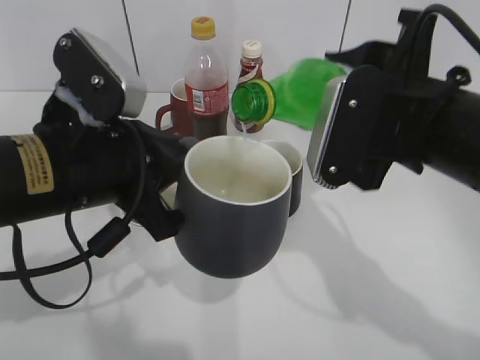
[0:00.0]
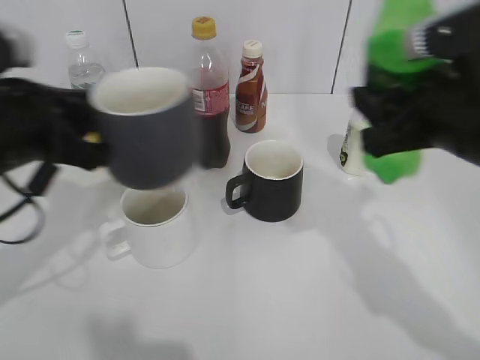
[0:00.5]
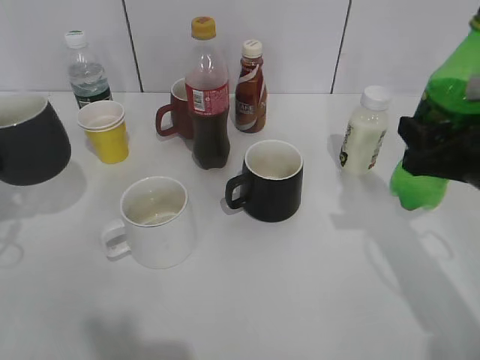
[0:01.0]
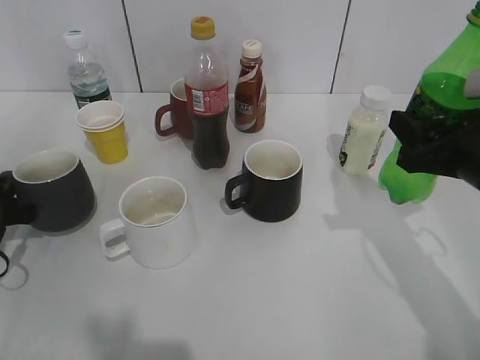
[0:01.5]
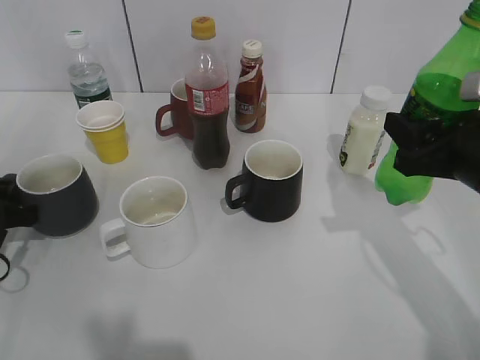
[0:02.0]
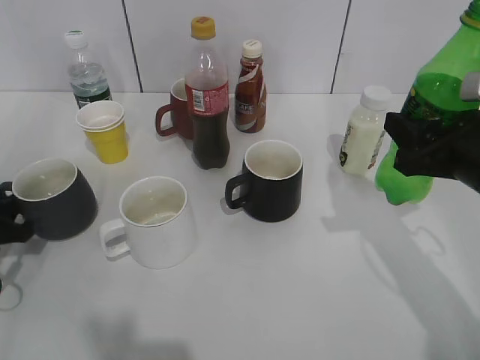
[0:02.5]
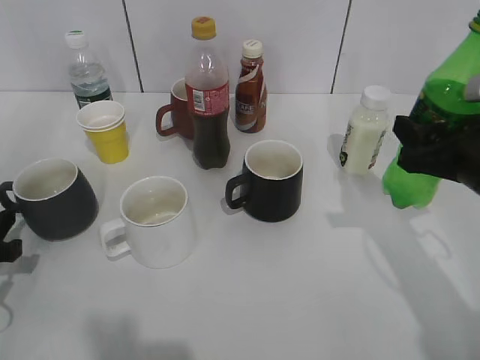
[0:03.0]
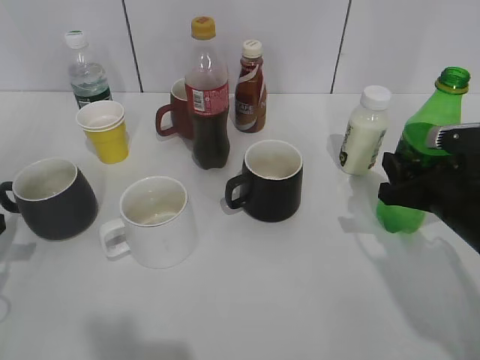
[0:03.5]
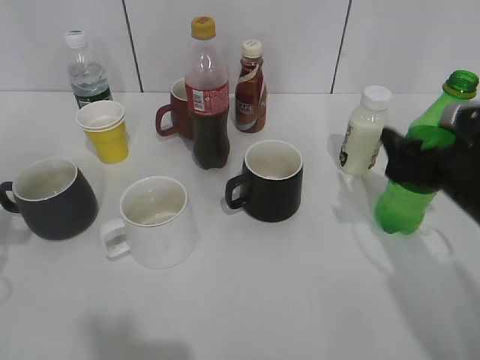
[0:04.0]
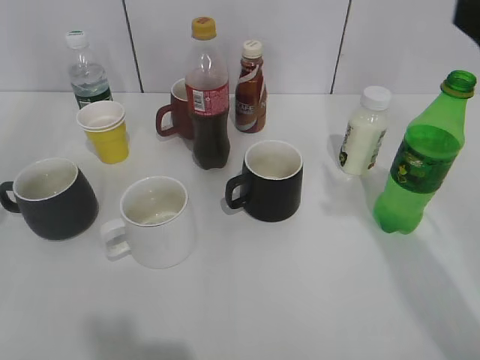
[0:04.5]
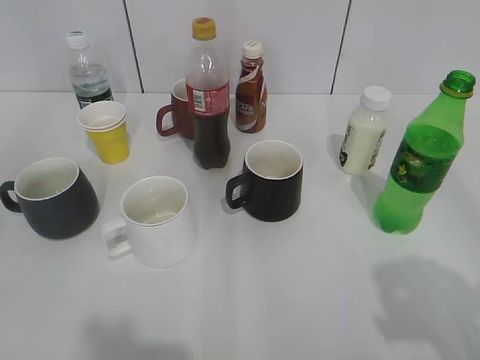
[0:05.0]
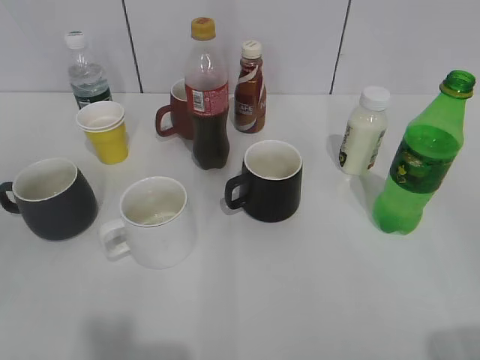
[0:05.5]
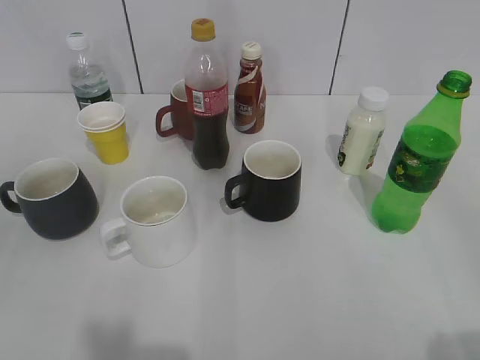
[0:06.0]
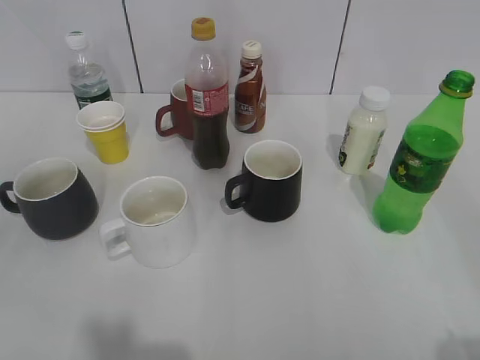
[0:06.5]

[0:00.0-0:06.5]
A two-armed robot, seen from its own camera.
Step, 0:00.5 to 0:02.5: Place the grey cup on the table with left gripper.
Step, 0:03.0 to 0:03.5: Place the sprite bottle on the table with right gripper.
0:00.0 to 0:02.0: The left gripper travels to the left and downward by approximately 25 cm. Meanwhile the right gripper shifts about 10 cm to the right and downward.
0:02.0 to 0:04.5: The left gripper goes about 20 cm upward, and opens its fingers; the right gripper shifts some 15 cm upward, and opens up.
0:04.5 to 0:06.5: The right gripper travels backward by about 20 cm, and closes up.

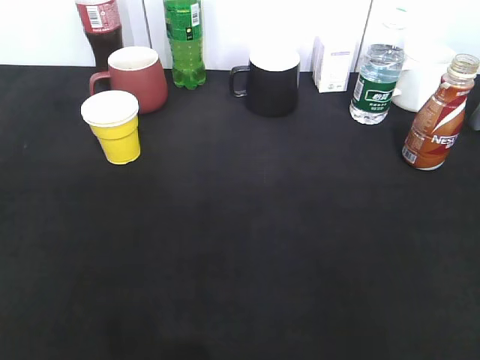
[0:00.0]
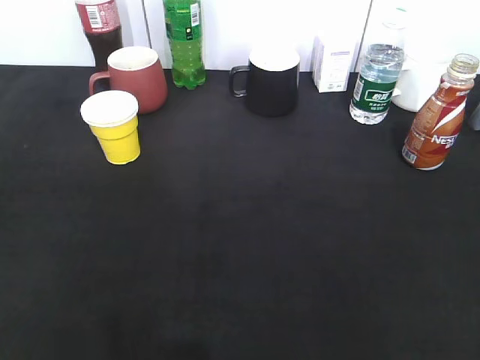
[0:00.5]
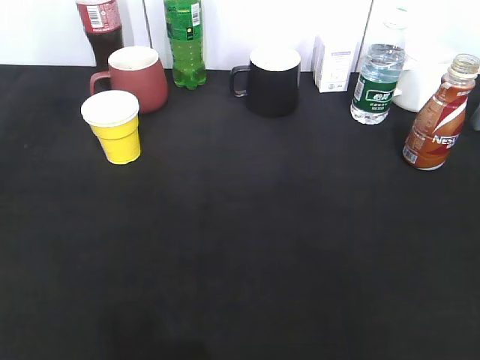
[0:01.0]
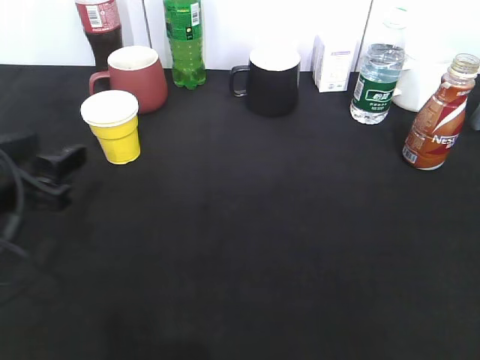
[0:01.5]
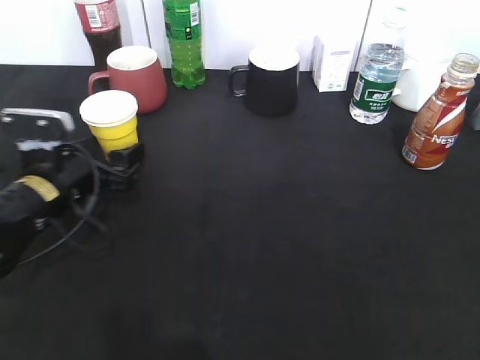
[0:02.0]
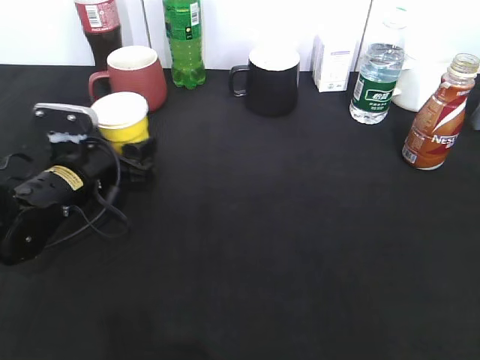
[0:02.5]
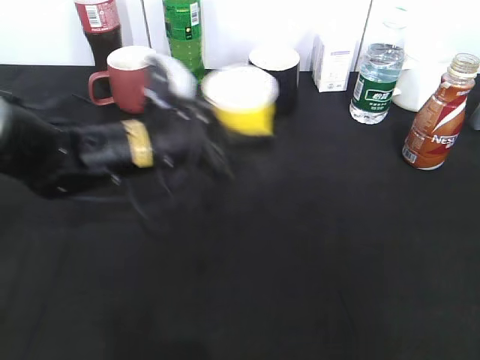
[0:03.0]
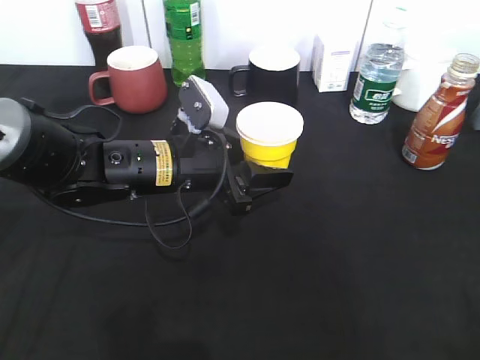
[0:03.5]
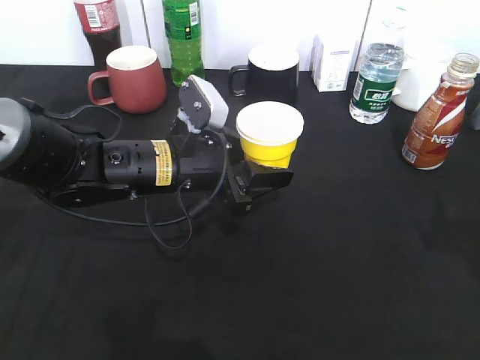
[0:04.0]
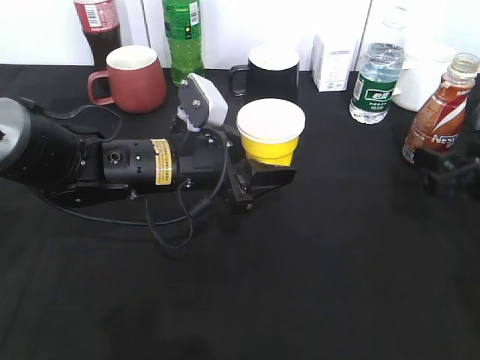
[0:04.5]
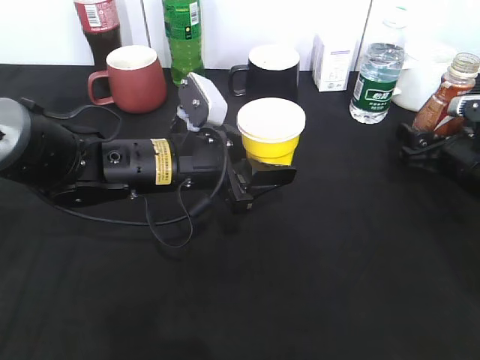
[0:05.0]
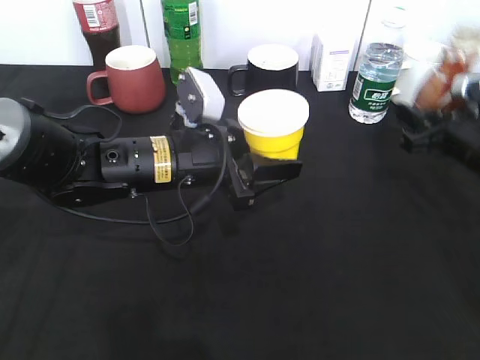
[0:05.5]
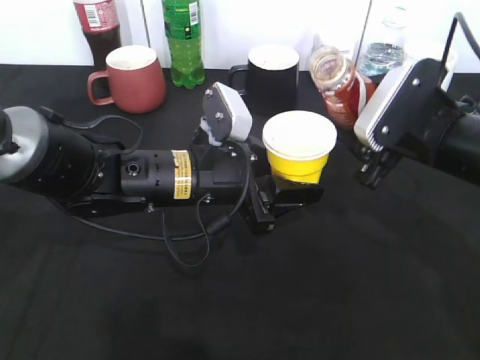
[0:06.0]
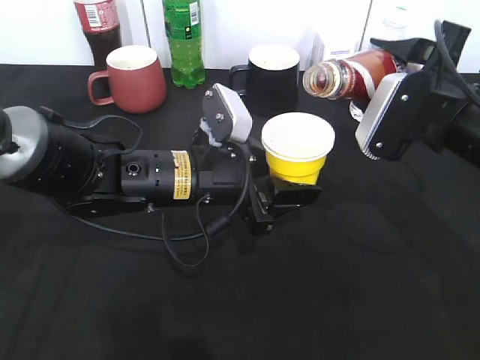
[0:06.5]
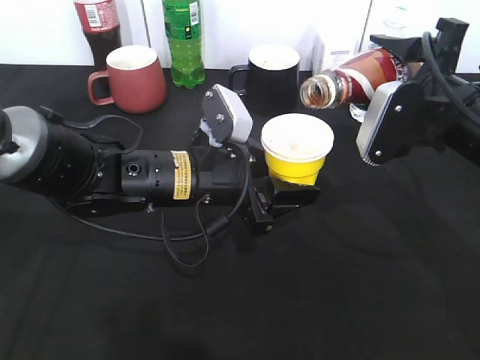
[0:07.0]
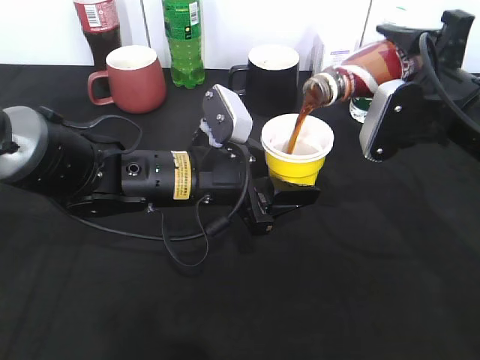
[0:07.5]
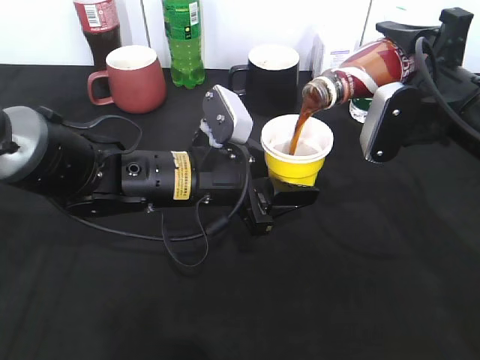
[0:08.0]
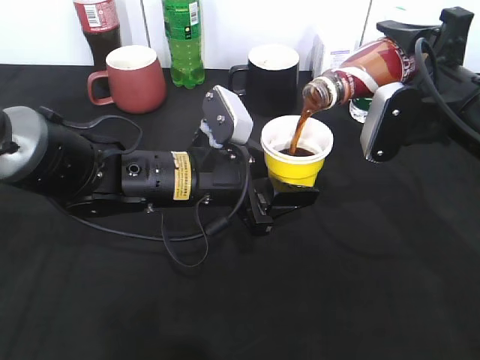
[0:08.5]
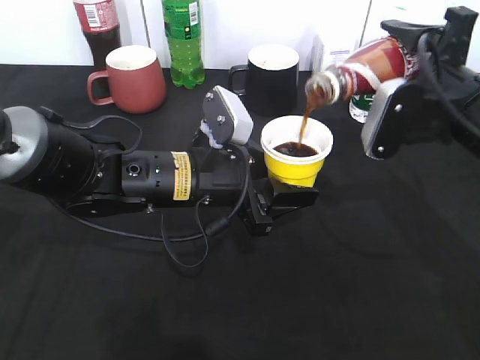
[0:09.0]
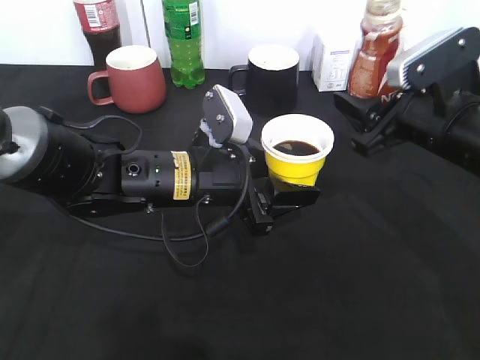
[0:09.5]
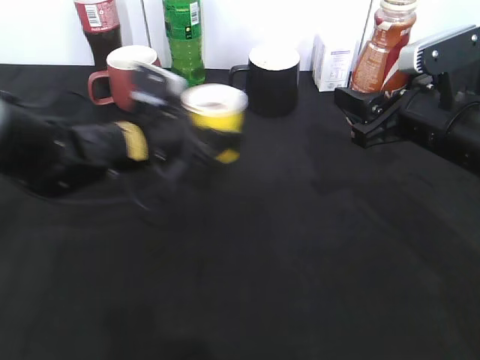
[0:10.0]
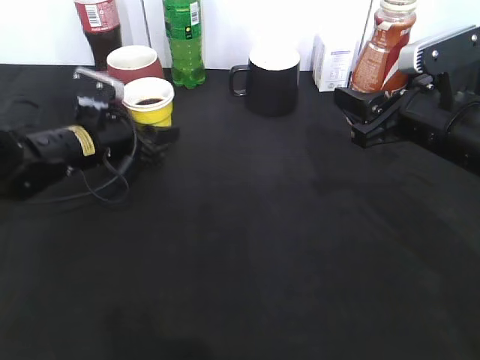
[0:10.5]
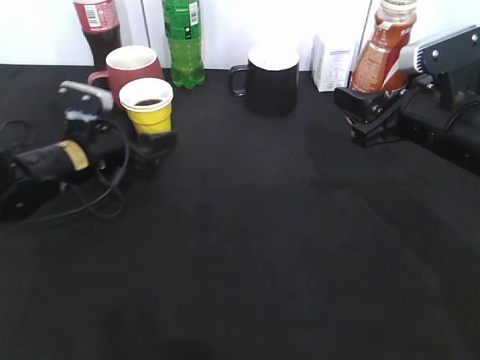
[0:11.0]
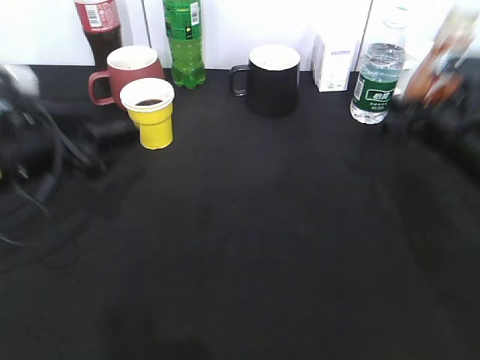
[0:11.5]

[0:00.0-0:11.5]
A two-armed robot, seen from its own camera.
Step, 0:01.5 to 0:02.0: Grasp the yellow paper cup with left gripper.
Step, 0:02.5 to 0:04.0: Lift the yellow paper cup with left gripper.
Step, 0:04.5 to 0:05.0: Grasp the bottle with coffee with right gripper.
Step, 0:05.5 to 0:09.0: Pour the coffee from bottle to cup with right gripper.
Step, 0:09.5 to 0:10.5: Place the yellow paper cup on the table with left gripper.
0:00.0 to 0:02.0: The left gripper travels forward and downward by about 35 cm, and opens its fingers.
0:02.0 to 0:04.0: The right gripper goes some 15 cm forward. Meanwhile the left gripper shifts some 15 cm to the right, and closes its fingers.
0:04.0 to 0:06.0: The right gripper moves forward and to the left, about 15 cm, and opens, then closes again.
0:09.5 to 0:11.5: The left gripper moves to the left, approximately 15 cm. Meanwhile the right gripper shifts by roughly 5 cm.

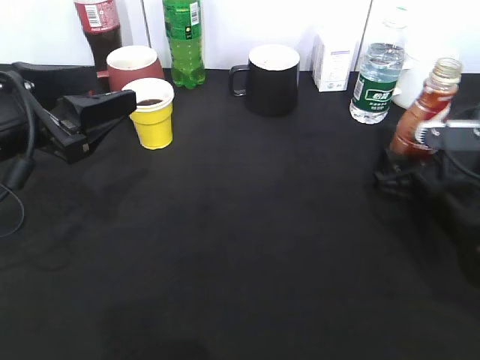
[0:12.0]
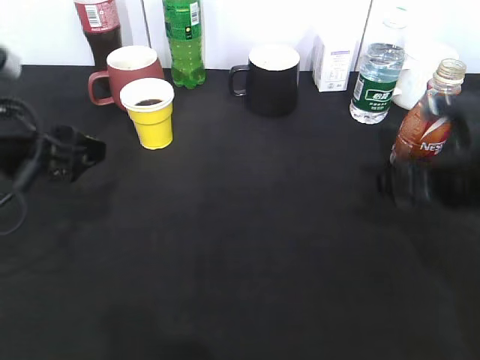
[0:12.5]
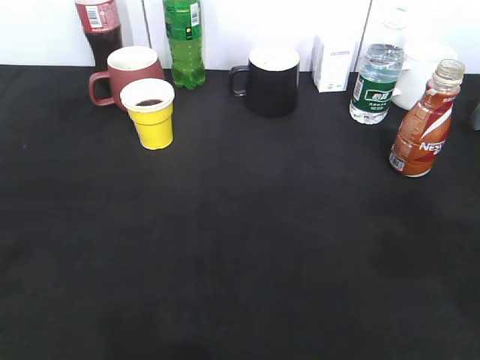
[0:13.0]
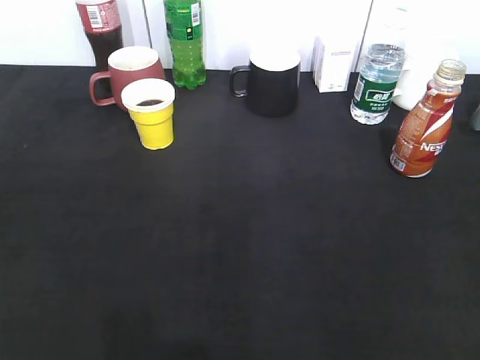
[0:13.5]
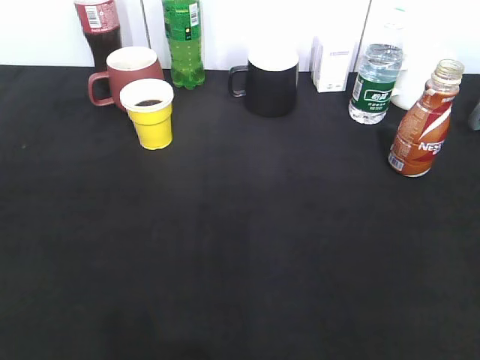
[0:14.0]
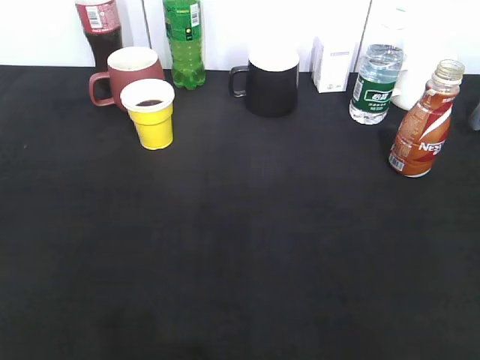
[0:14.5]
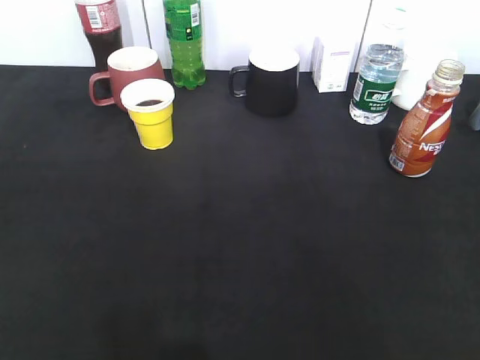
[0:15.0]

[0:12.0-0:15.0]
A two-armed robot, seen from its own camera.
0:12.0 to 0:13.5: The left gripper moves backward and to the left, some 25 cm; the right gripper heads backward and upward, covering about 35 cm.

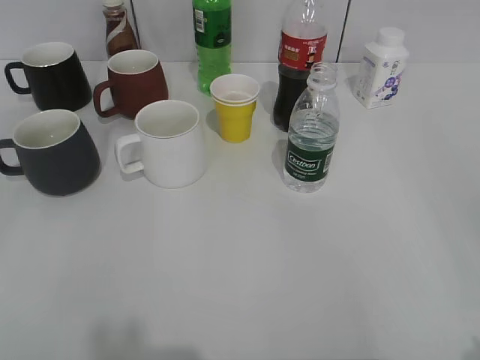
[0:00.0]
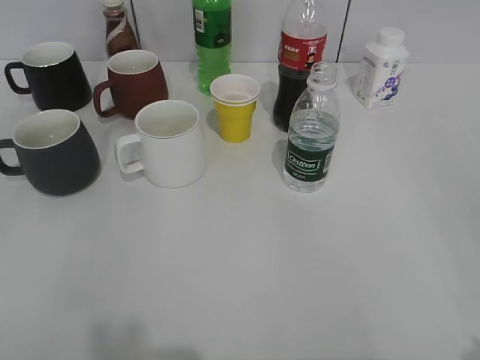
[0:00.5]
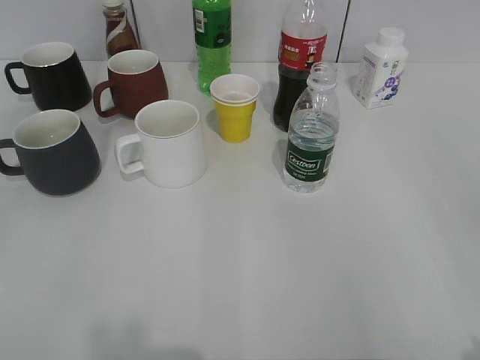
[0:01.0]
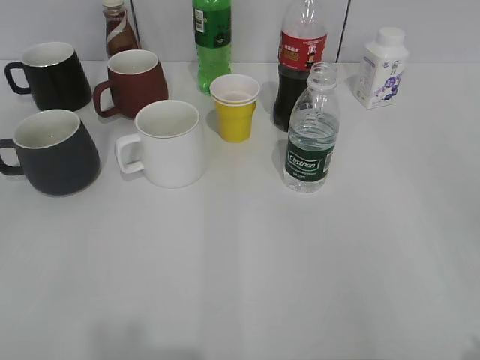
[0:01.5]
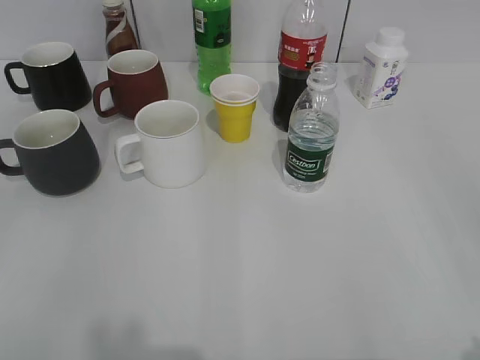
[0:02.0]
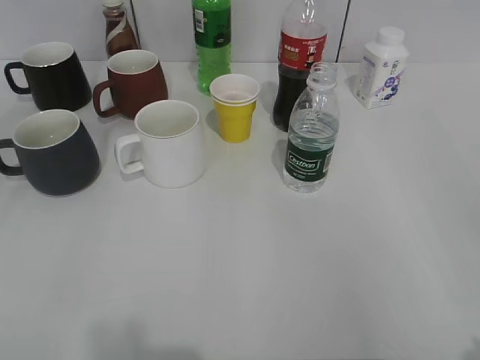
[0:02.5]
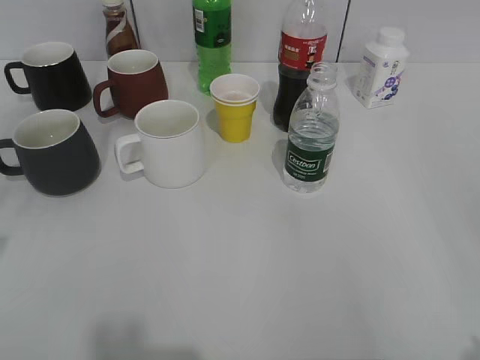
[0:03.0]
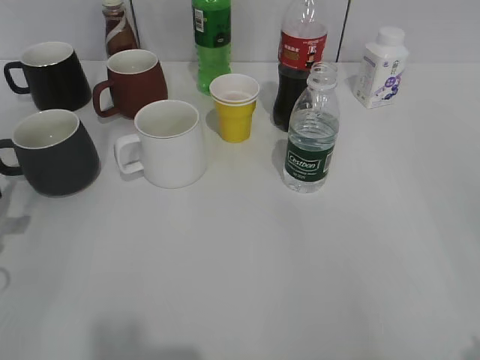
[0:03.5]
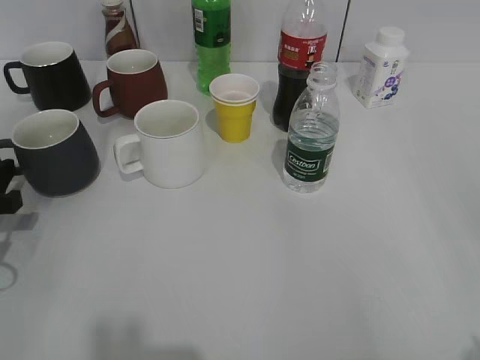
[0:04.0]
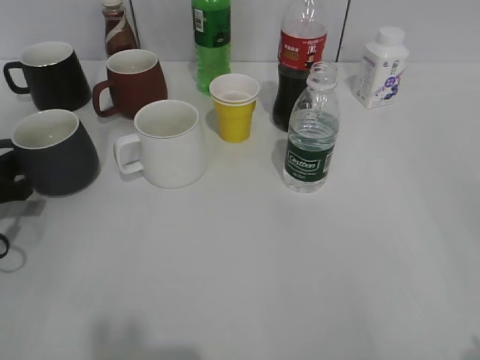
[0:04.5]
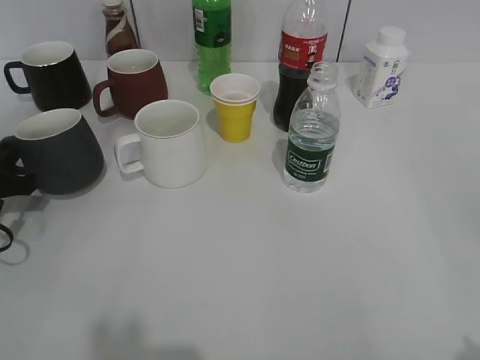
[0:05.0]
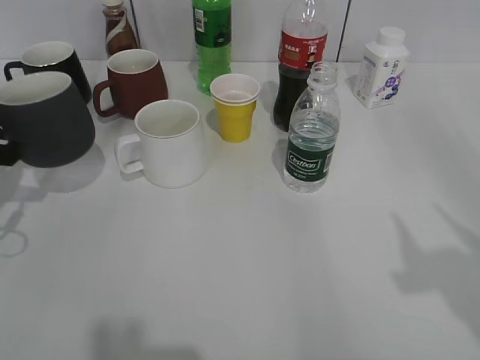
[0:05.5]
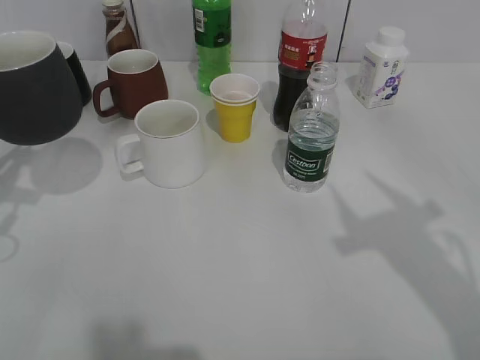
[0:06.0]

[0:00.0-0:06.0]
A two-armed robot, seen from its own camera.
Step, 0:02.5 to 0:04.5: Grasp the black cup with left gripper.
Step, 0:05.0 to 0:05.5: Lift the black cup with left gripper.
0:02.0 to 0:04.0: The left gripper heads forward and downward, covering about 30 cm.
0:04.0 to 0:06.0: The right gripper shifts about 15 cm forward; the left gripper goes roughly 10 cm upward, and closes its fingers.
